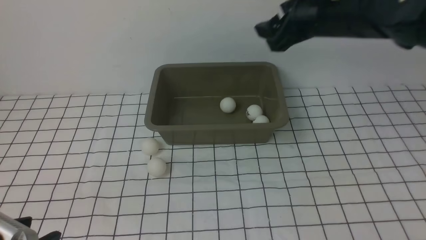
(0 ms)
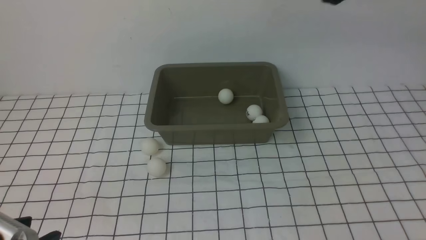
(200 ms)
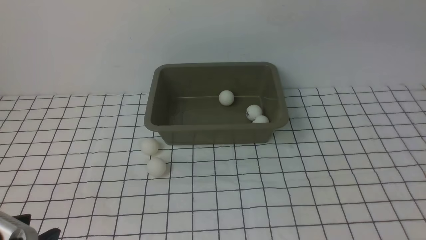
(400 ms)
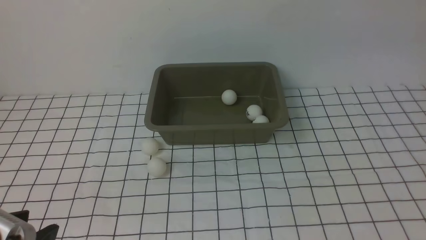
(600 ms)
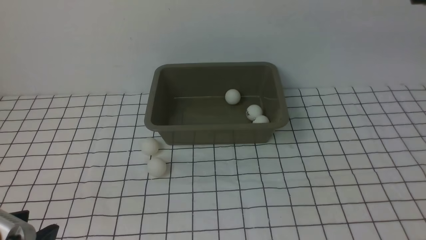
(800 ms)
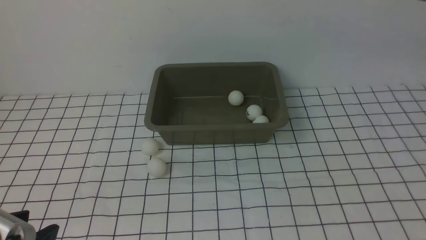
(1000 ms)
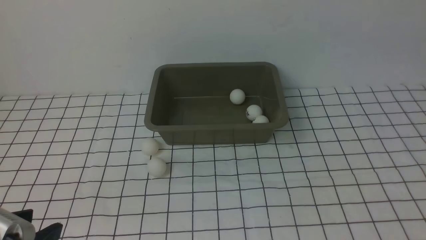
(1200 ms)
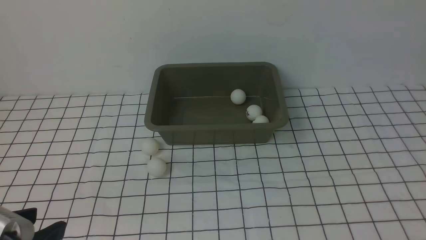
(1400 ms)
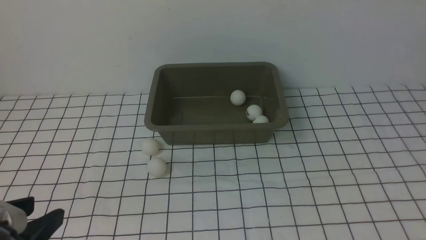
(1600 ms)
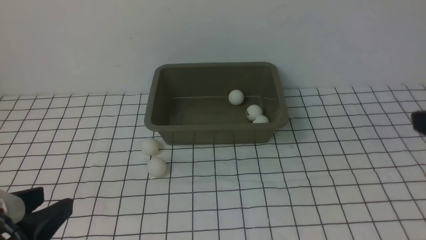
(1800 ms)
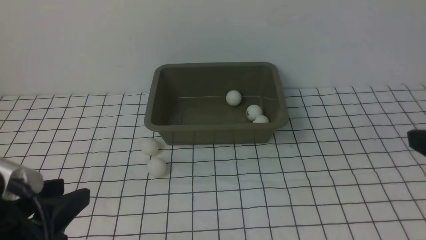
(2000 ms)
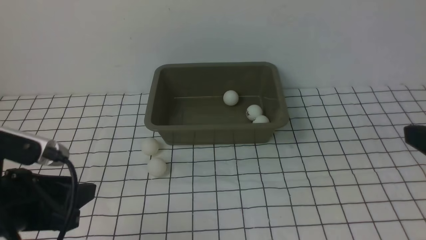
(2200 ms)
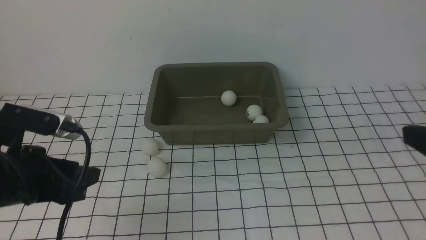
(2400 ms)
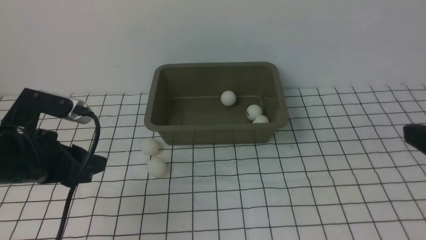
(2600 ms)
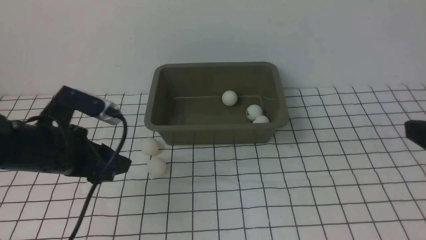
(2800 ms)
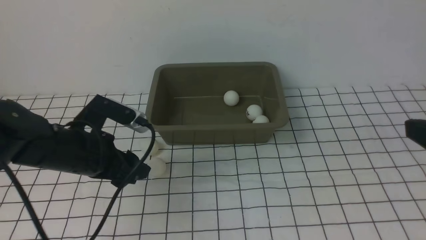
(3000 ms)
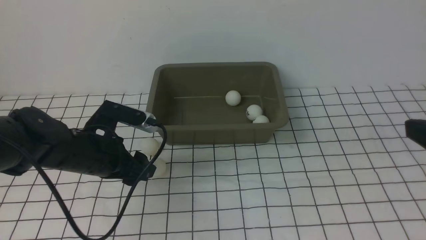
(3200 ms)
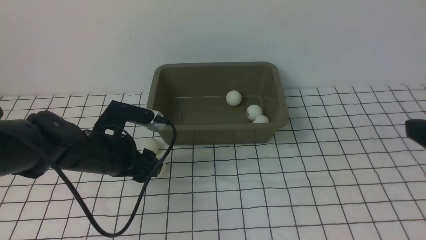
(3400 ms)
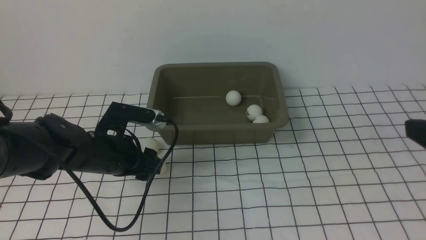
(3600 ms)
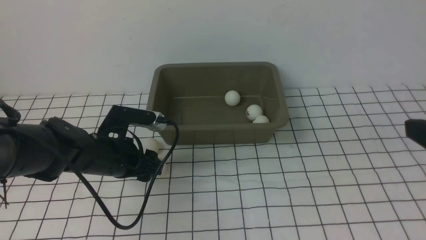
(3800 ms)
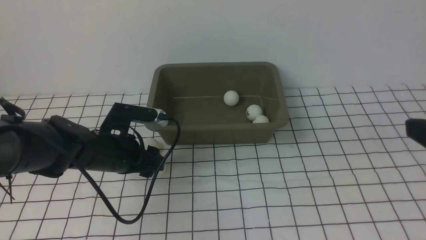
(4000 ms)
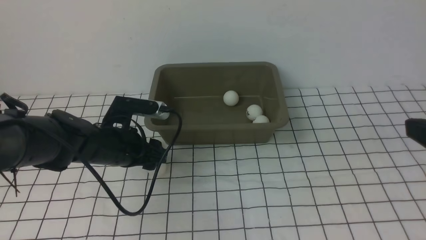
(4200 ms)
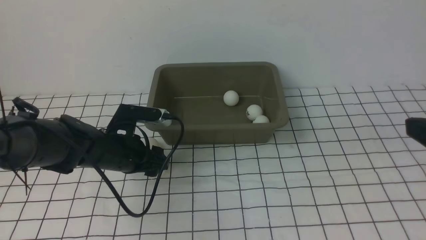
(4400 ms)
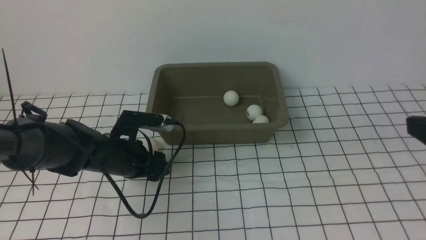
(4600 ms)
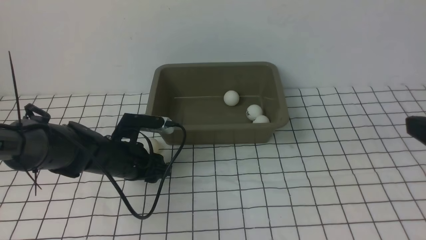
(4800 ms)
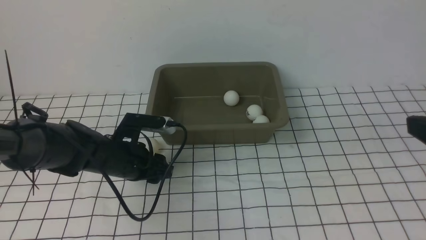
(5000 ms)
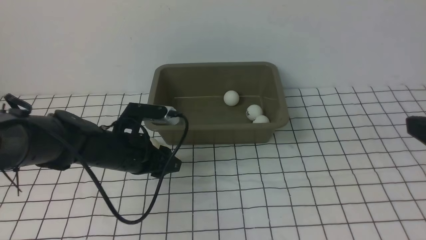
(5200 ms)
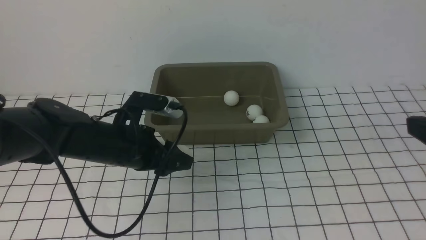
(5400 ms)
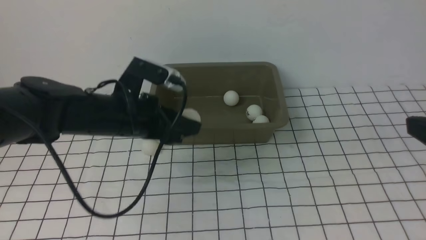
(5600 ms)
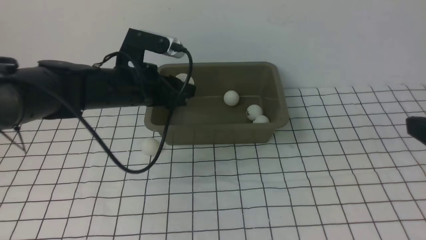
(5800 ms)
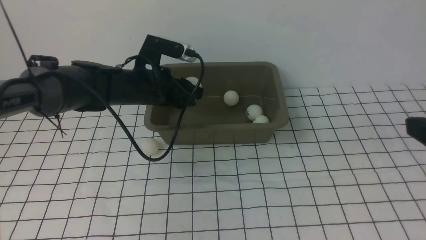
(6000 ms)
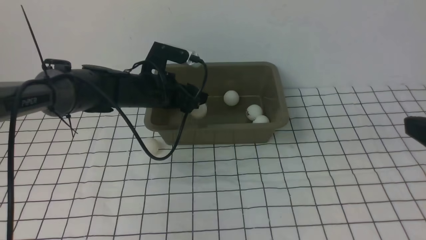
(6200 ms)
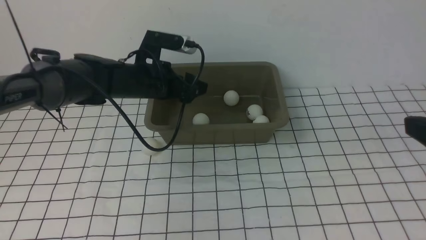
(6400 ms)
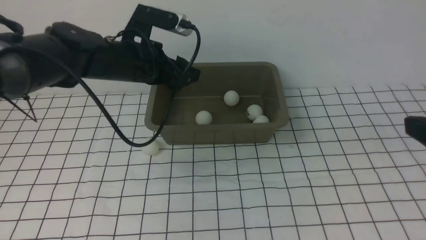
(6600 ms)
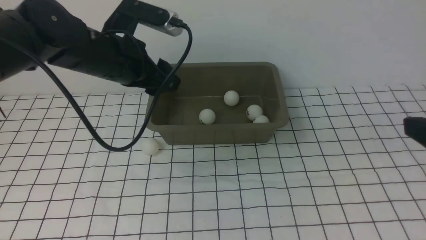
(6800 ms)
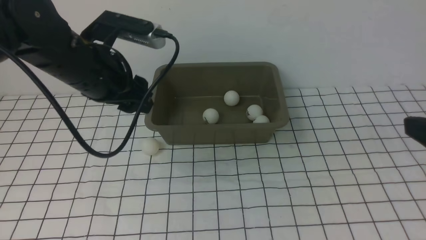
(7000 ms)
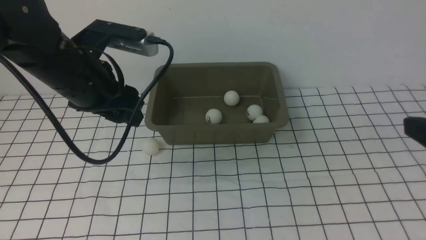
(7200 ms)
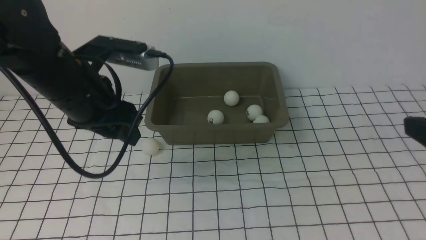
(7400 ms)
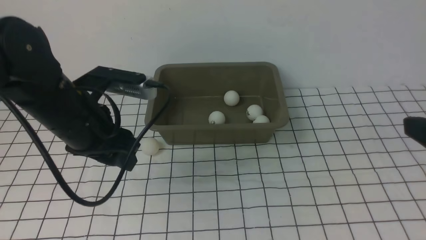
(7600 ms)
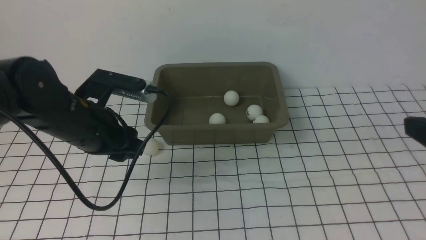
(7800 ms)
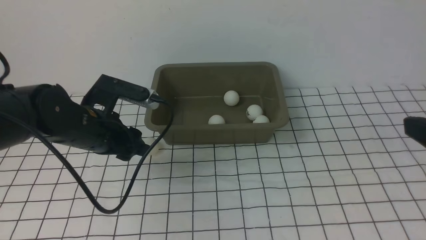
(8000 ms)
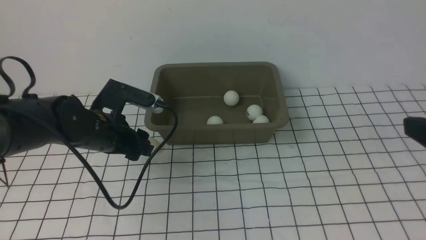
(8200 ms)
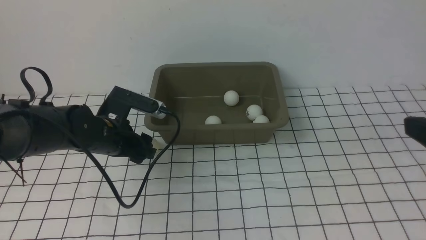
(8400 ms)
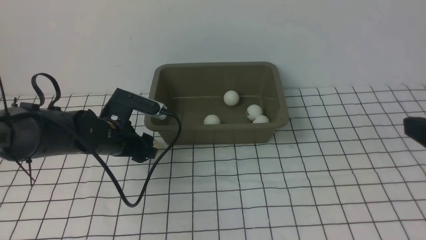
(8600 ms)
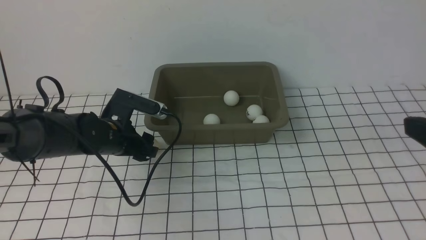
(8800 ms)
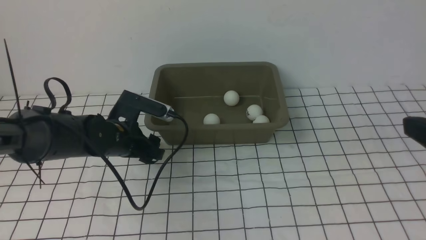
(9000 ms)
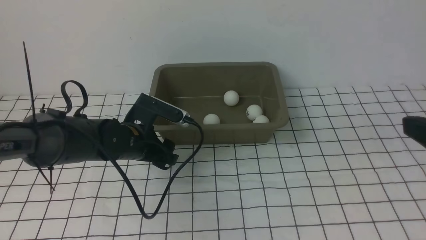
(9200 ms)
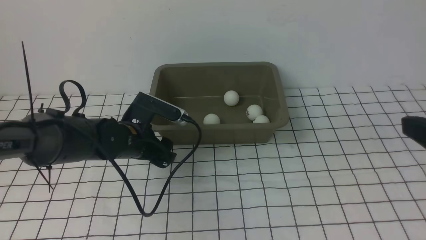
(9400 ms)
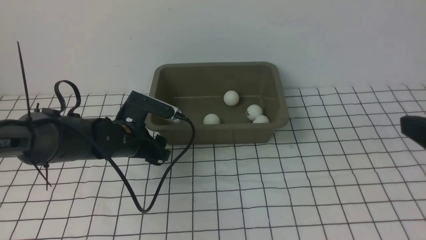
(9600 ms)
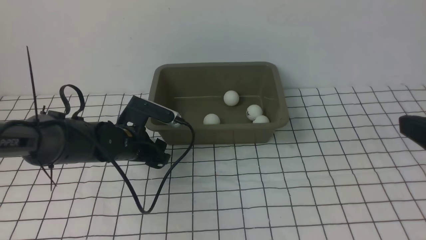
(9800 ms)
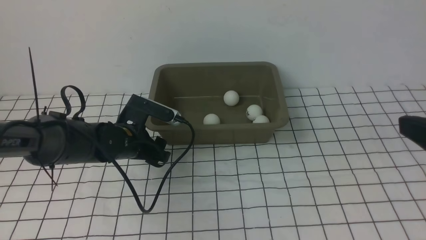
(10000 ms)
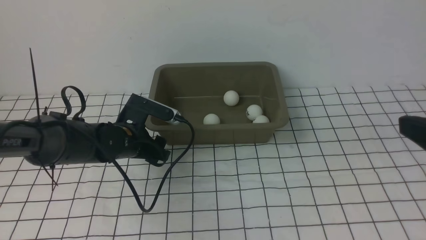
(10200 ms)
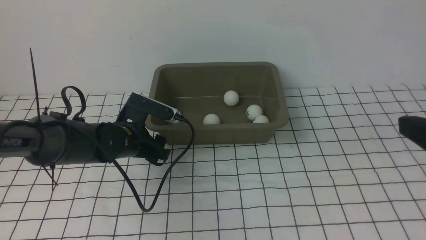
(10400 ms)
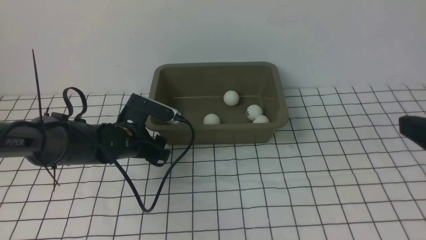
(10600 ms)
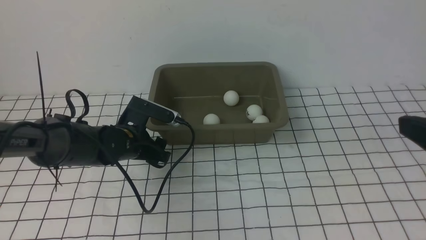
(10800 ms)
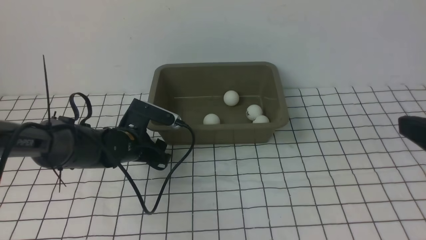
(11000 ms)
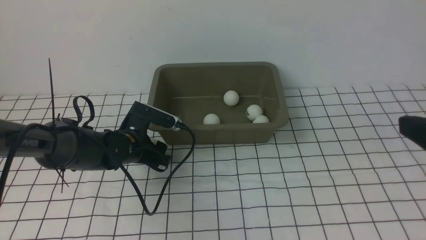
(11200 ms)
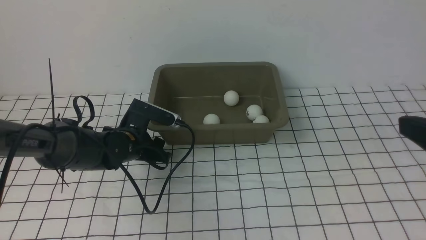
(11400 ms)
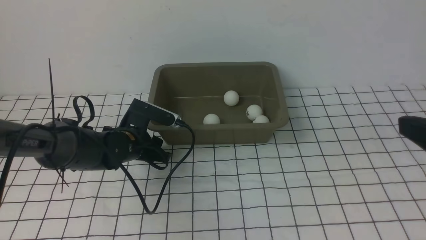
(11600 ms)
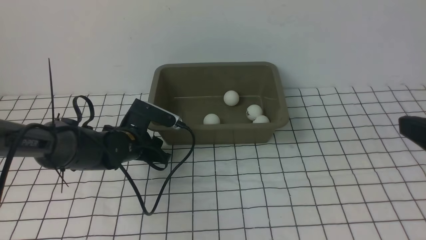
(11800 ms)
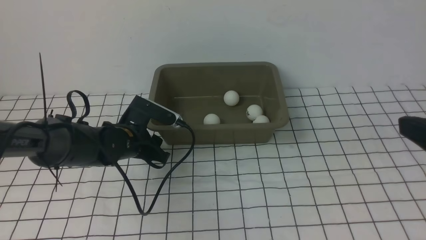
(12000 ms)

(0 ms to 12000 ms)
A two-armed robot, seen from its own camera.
Step, 0 ms - 5200 ms: use the left arm to clamp the table tennis ball closest to it.
Step, 5400 ms - 6400 ms: use the left arm to put the table tennis ball into the box.
0 ms - 1600 ms: The right gripper travels backward and to the right by about 25 cm.
1600 ms - 3000 ms: The right gripper moves downward, about 5 cm. The left gripper shifts approximately 20 cm forward.
3000 ms - 4400 ms: The left gripper heads downward and forward, covering roughly 10 cm.
4400 ms - 6000 ms: The left gripper heads upward and forward, covering some 10 cm.
6000 ms - 7600 ms: The left gripper shifts roughly 15 cm backward and upward.
7600 ms - 9000 ms: The left gripper moves downward and forward, roughly 15 cm.
9000 ms - 12000 ms: The grippers stay close to where they were, moving slightly.

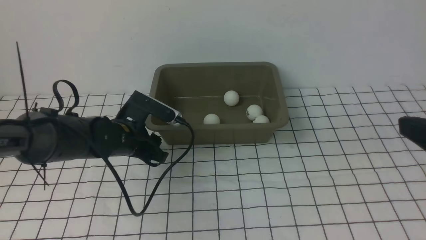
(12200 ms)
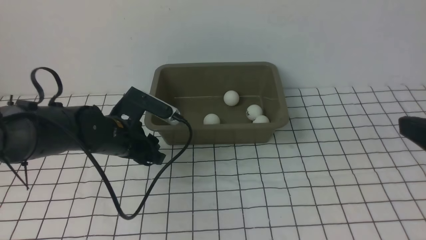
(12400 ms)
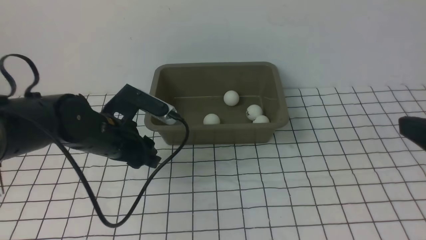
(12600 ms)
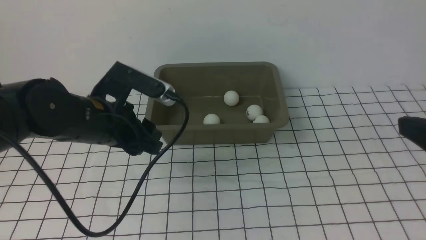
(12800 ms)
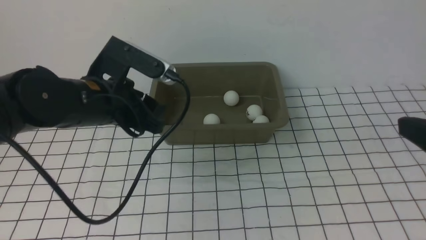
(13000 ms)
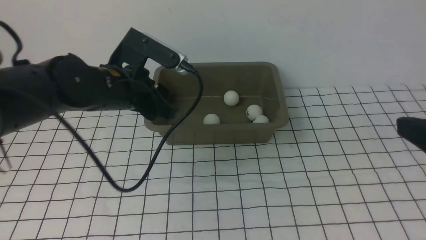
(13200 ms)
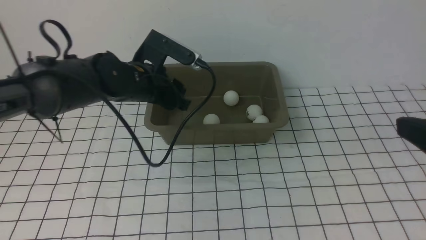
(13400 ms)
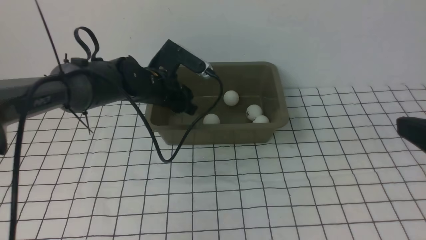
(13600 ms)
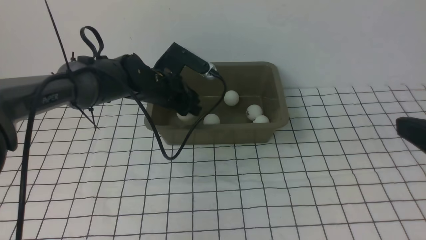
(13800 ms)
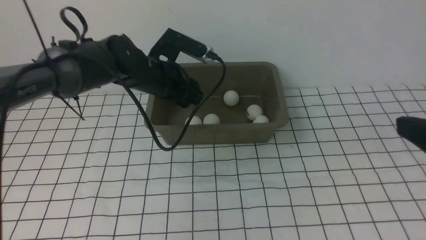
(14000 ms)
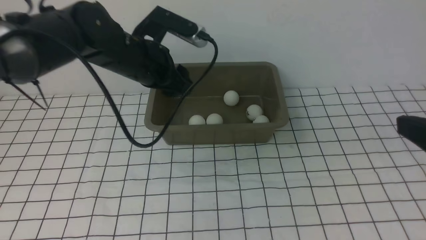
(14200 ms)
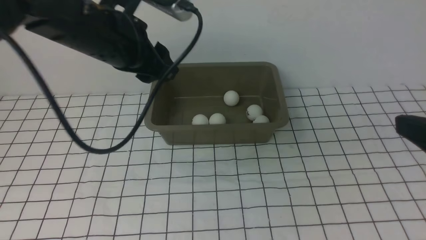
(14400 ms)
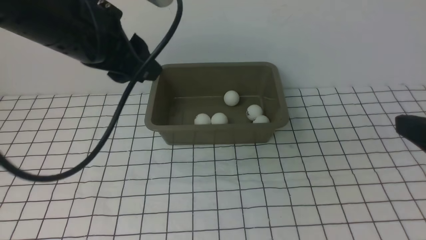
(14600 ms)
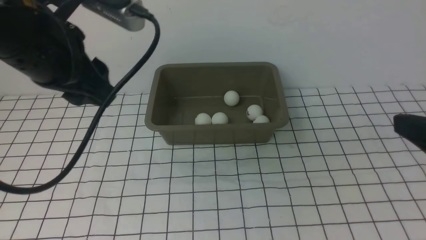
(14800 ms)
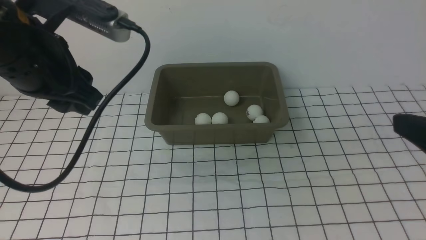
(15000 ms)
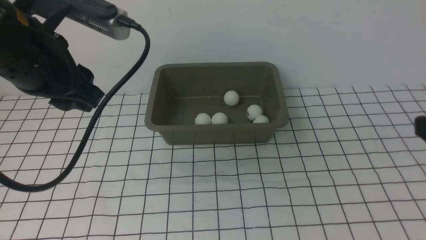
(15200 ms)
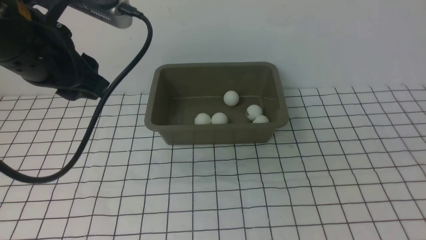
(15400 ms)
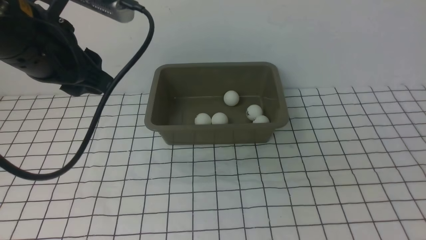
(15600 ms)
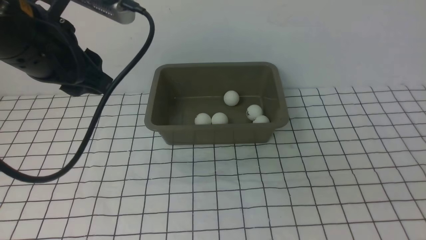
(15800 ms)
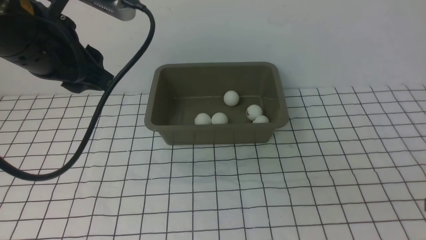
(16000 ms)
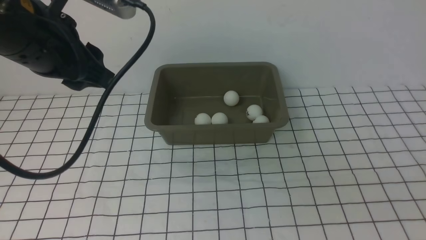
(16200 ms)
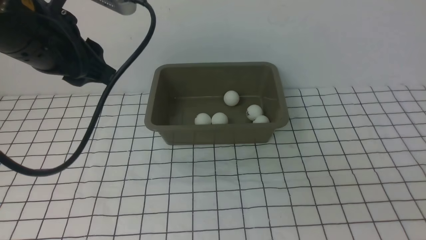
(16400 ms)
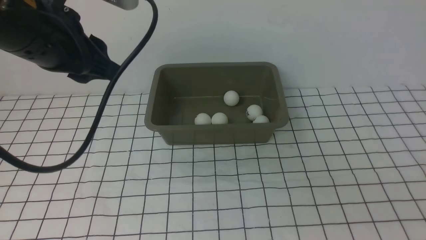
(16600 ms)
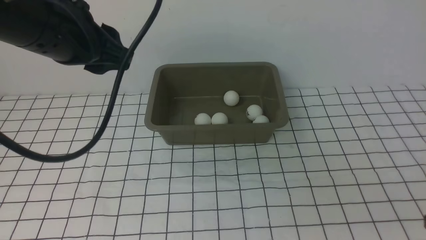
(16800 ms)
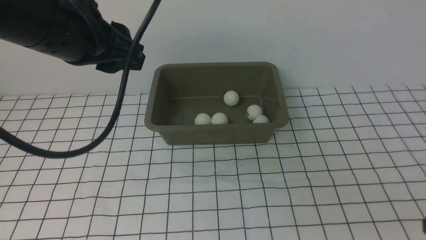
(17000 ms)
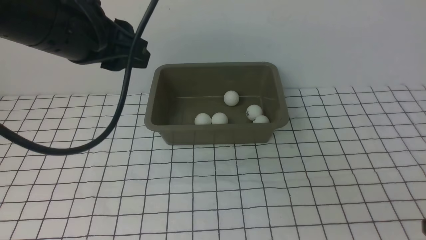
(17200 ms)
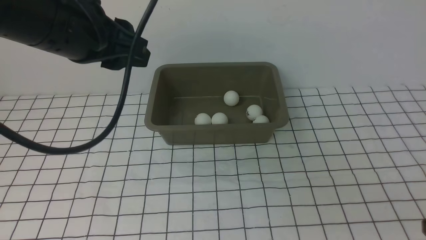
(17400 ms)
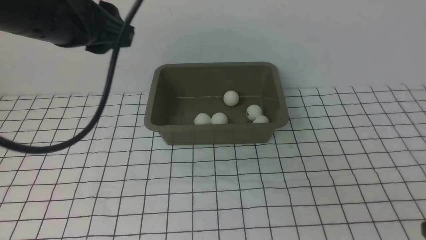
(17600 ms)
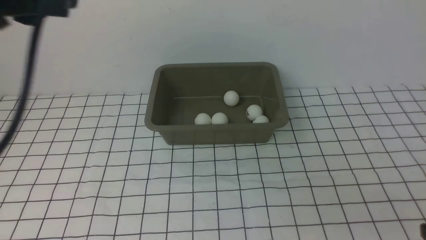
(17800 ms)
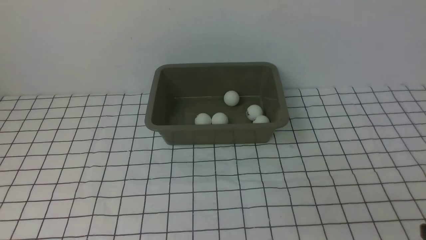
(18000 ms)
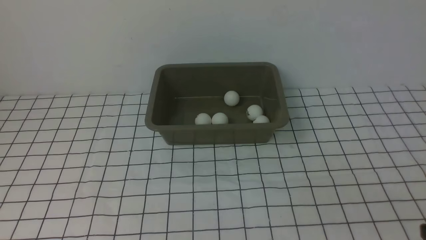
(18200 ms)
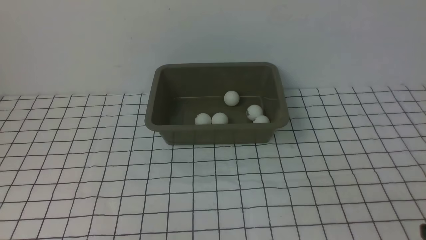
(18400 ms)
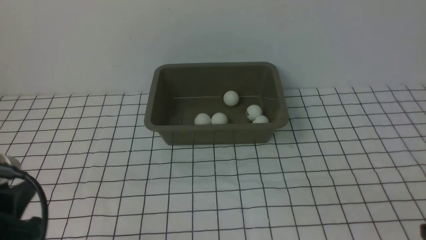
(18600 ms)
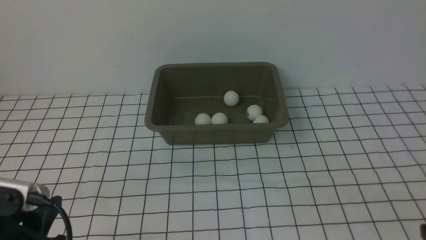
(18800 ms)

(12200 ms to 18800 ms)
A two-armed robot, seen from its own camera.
Step, 12600 ms - 14000 ms: use the left arm to put the table tennis ball into the box.
12200 ms - 13800 ms: The left gripper travels forward, upward and to the right by some 10 cm.
13800 ms - 15400 ms: The left gripper goes roughly 25 cm upward, backward and to the left, while the right gripper shifts some 5 cm backward.
15400 ms - 17200 ms: The right gripper goes some 10 cm downward.
17200 ms - 18800 ms: The left gripper travels backward, downward and to the left by some 25 cm.
